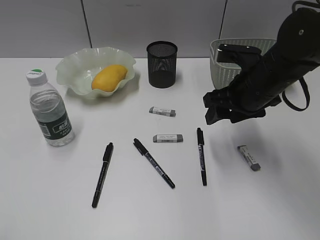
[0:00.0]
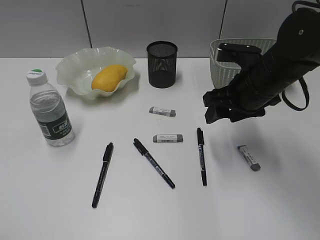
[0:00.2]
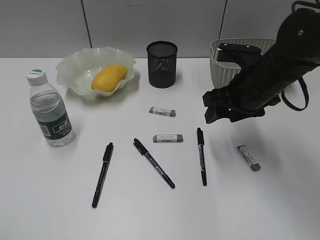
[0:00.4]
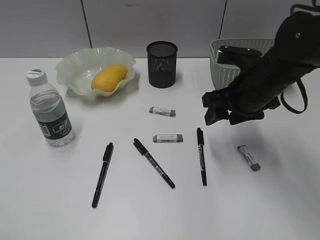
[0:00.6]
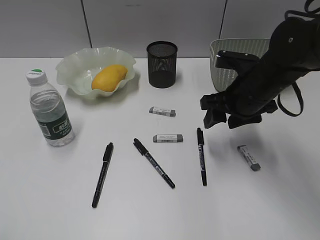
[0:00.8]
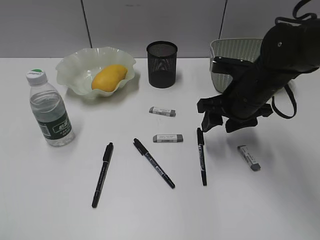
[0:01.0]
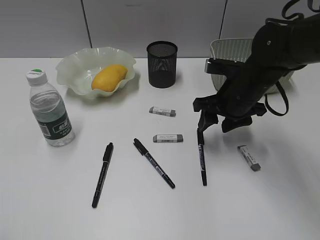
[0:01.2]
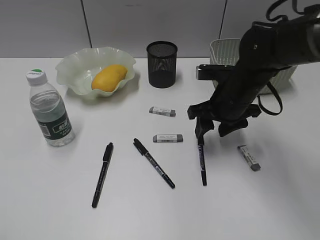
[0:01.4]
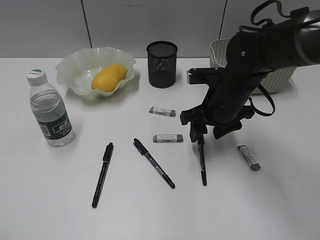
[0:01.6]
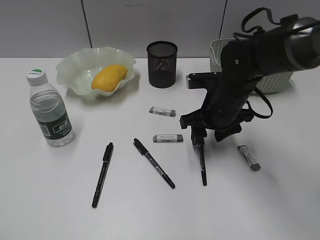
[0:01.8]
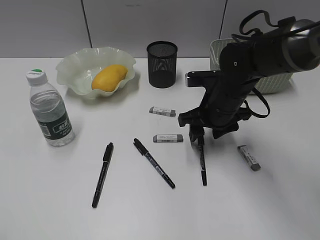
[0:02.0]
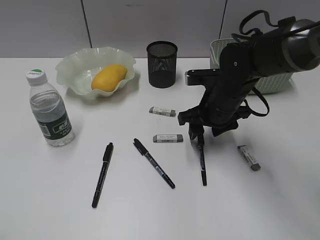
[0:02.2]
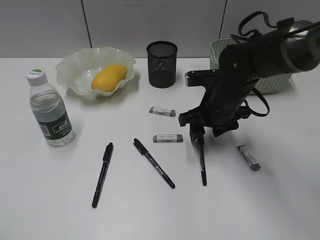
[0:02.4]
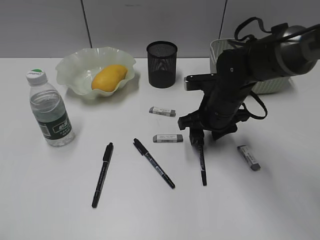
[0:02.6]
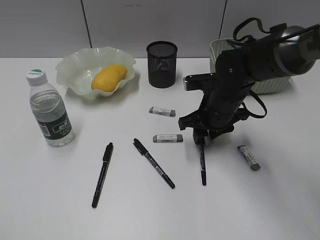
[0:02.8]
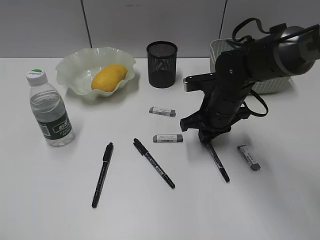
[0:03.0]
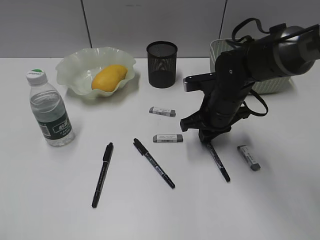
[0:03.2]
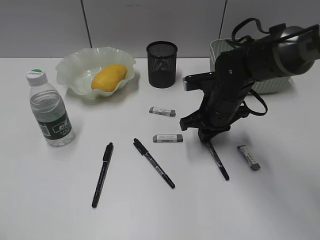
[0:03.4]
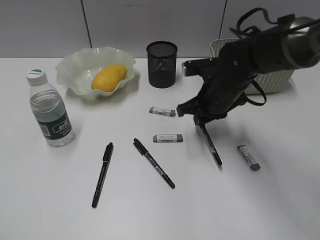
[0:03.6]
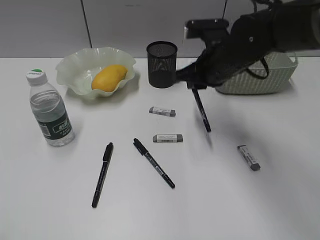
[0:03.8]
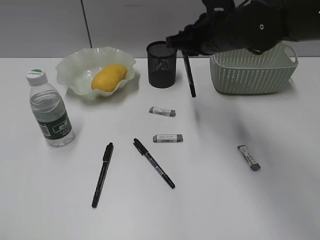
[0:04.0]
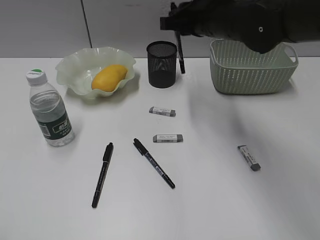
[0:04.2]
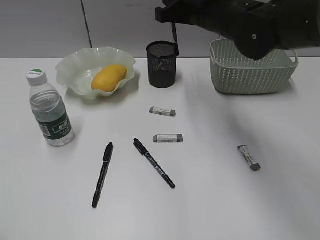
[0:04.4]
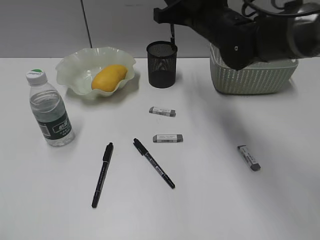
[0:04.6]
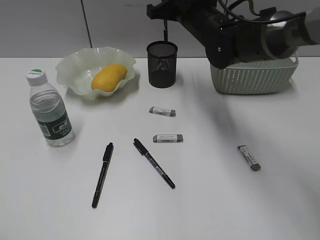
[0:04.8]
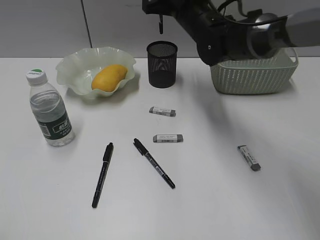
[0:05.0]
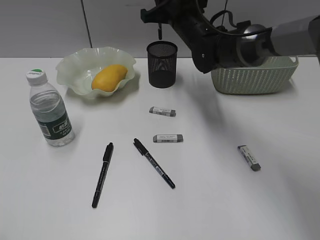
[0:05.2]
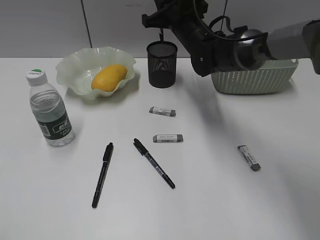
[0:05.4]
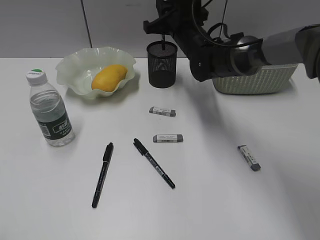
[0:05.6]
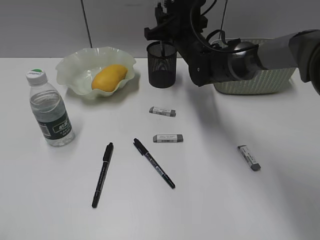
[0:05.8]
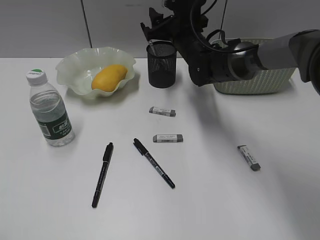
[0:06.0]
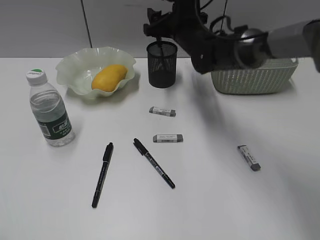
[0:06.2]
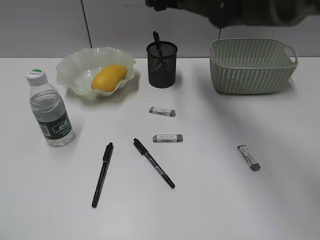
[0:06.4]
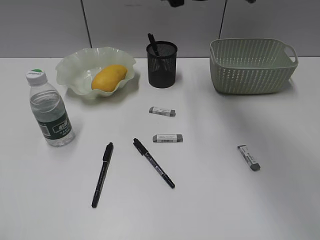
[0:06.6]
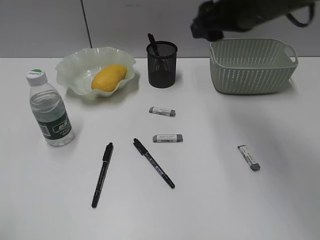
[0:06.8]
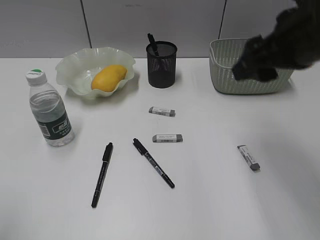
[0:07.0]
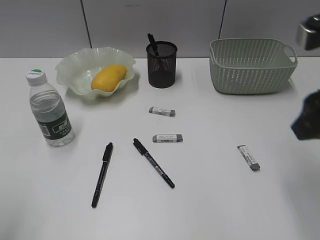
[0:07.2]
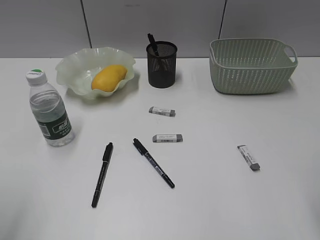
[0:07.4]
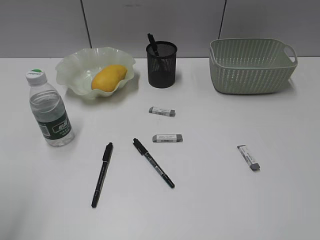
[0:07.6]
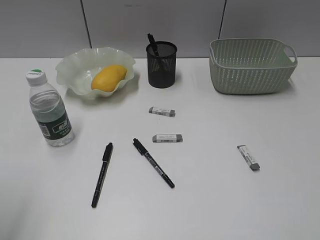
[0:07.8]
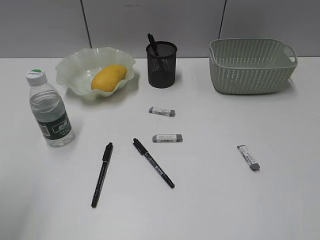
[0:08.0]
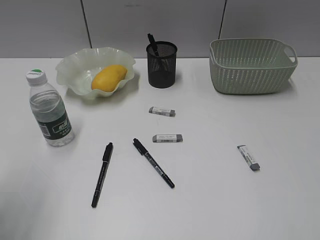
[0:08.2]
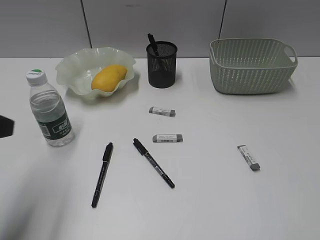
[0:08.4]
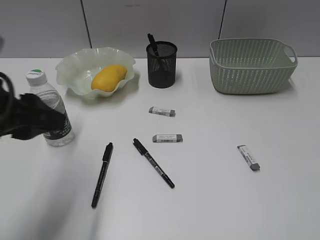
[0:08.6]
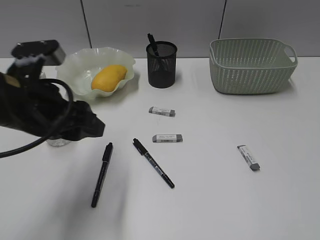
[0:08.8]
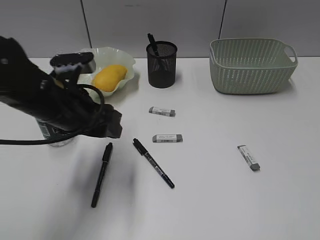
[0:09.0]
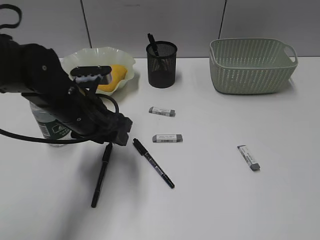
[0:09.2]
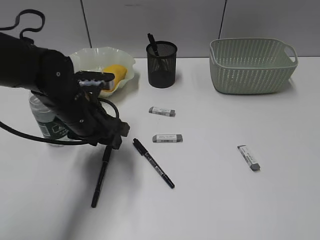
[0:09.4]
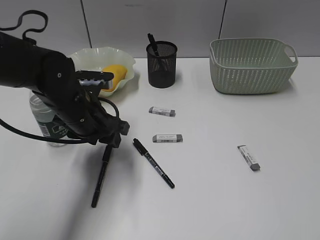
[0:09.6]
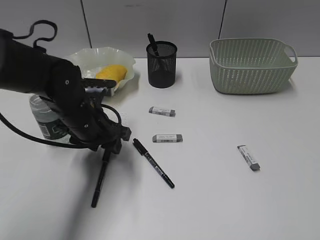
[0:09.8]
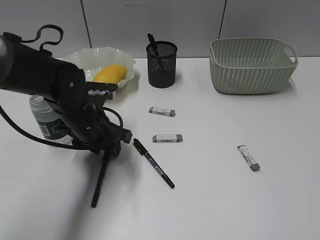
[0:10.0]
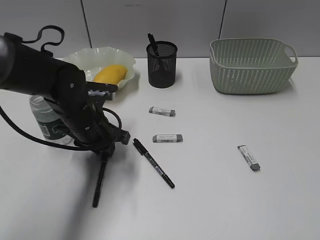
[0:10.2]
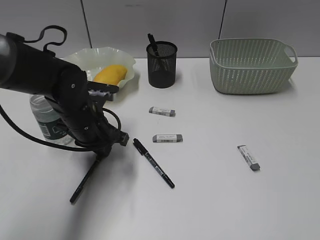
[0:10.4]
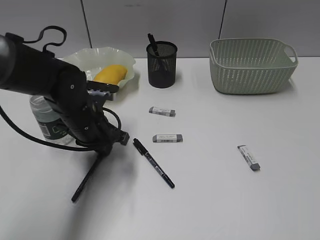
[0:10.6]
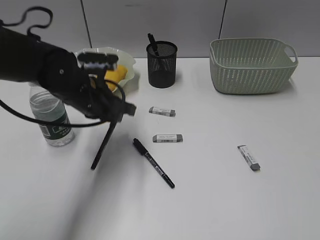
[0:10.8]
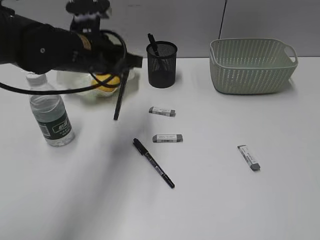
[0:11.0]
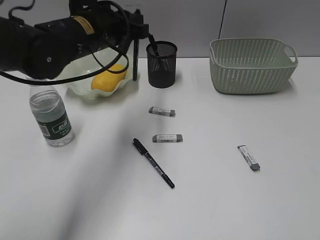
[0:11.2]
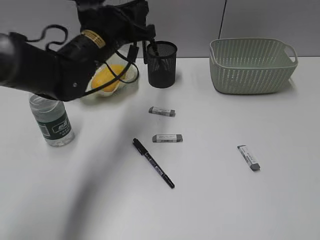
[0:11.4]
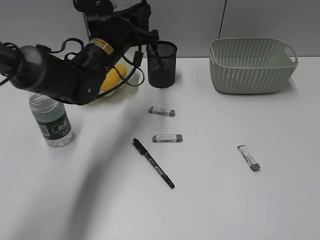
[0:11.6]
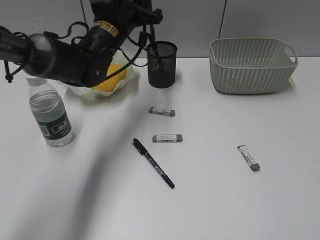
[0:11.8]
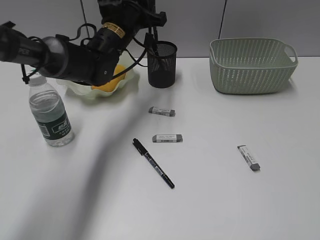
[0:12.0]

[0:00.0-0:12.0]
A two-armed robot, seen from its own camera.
Step, 0:00.0 to 0:03.2: Grasp the black pen with right gripper.
Step, 0:06.6 to 0:10.6: Grasp the black pen with left gripper.
0:00.0 to 0:01.6: The right gripper ends up about 5 cm from where it was.
0:01.6 to 0:03.0: The right gripper closes its fingers.
0:03.0 to 0:04.4: The right gripper travels upward by approximately 15 cm.
0:04.4 to 0:06.0: The right gripper heads downward and forward, covering roughly 15 cm, and opens its fingers.
0:06.0 to 0:07.6: The left gripper is displaced forward by some 10 cm; the right gripper moves backward and to the right, some 40 cm.
0:07.6 to 0:09.0: The right gripper is displaced backward by roughly 10 cm. The left gripper goes approximately 25 cm to the right, forward and downward.
0:09.0 to 0:10.4: The left gripper is displaced downward and forward by approximately 10 cm, and closes up.
0:10.4 to 0:12.0: The left gripper travels forward, upward and to the right by roughly 15 cm.

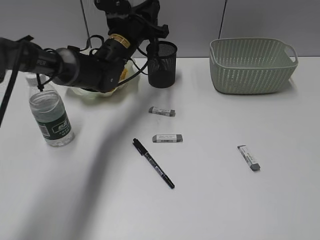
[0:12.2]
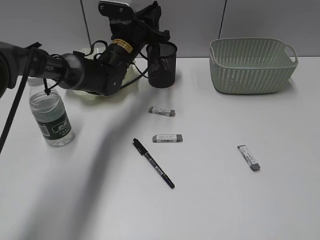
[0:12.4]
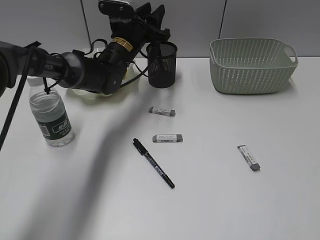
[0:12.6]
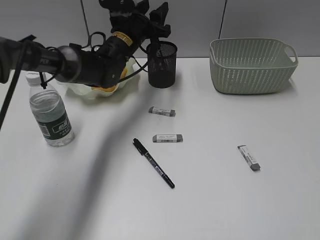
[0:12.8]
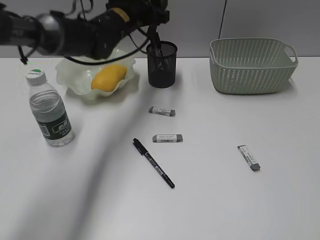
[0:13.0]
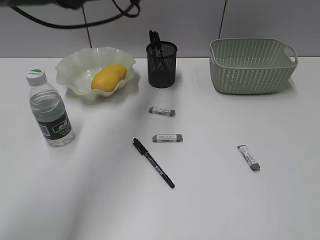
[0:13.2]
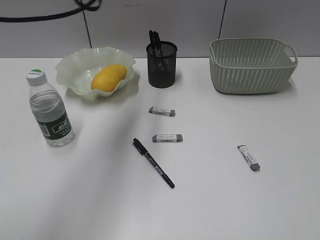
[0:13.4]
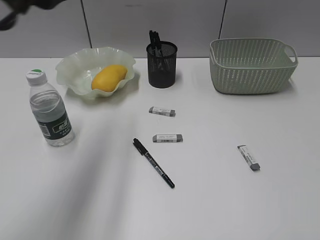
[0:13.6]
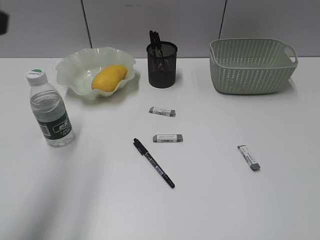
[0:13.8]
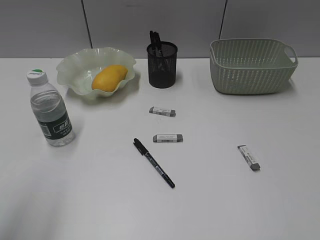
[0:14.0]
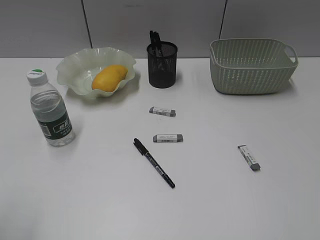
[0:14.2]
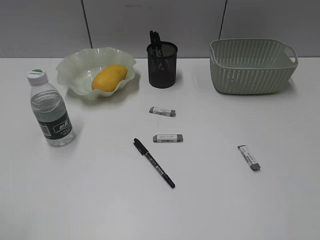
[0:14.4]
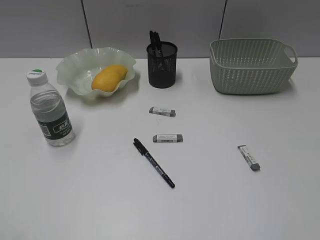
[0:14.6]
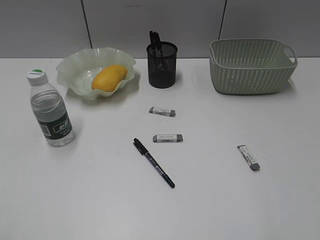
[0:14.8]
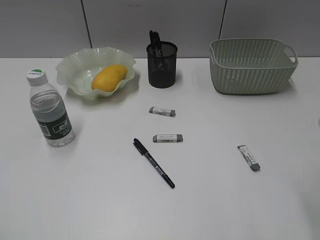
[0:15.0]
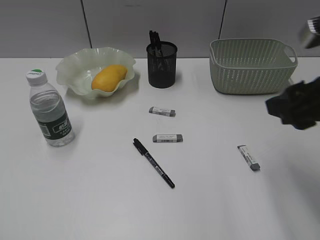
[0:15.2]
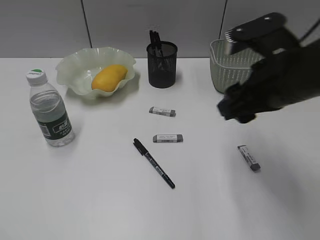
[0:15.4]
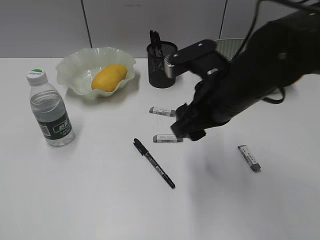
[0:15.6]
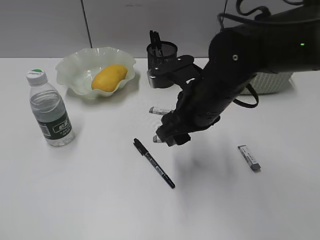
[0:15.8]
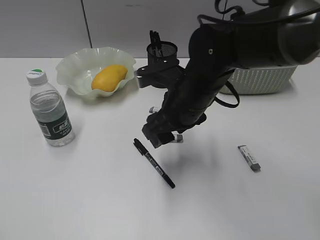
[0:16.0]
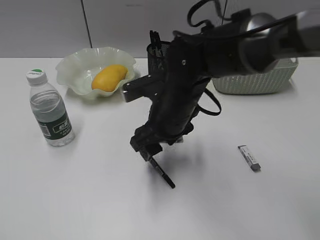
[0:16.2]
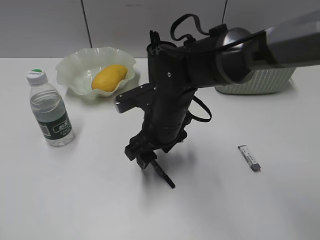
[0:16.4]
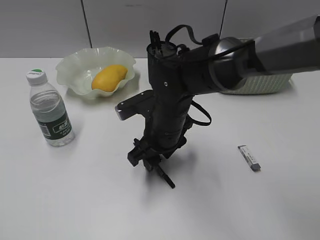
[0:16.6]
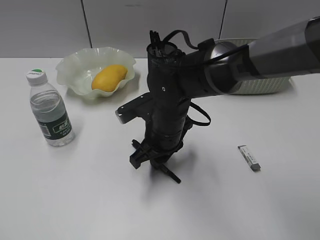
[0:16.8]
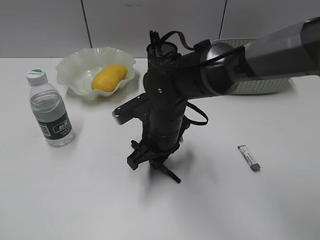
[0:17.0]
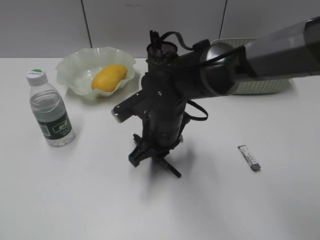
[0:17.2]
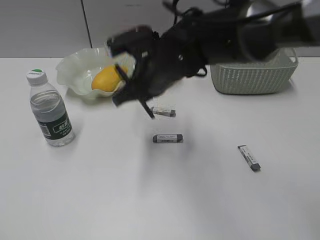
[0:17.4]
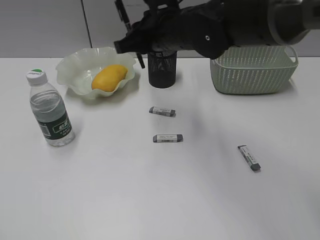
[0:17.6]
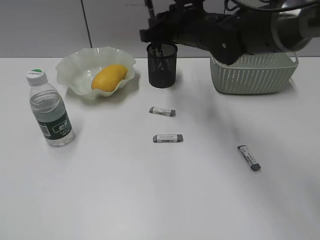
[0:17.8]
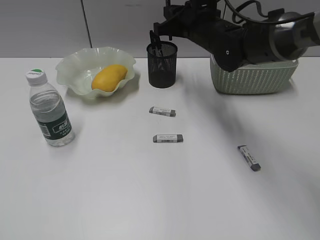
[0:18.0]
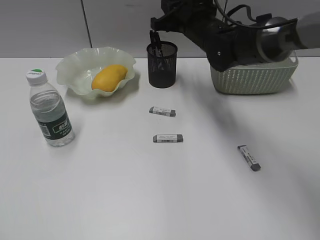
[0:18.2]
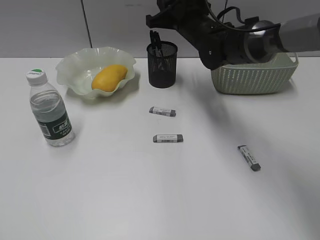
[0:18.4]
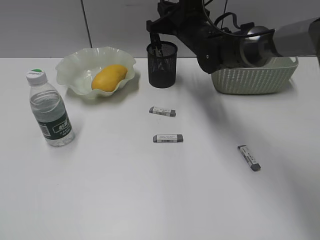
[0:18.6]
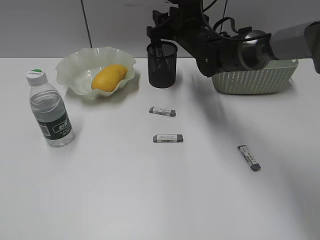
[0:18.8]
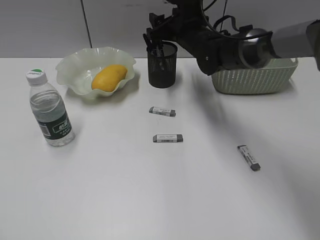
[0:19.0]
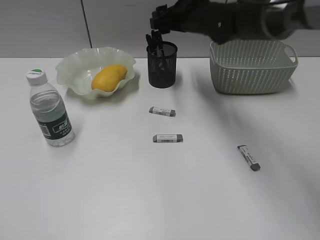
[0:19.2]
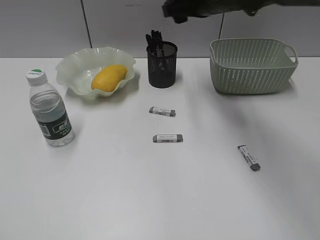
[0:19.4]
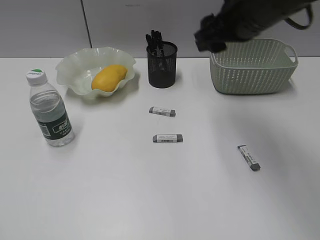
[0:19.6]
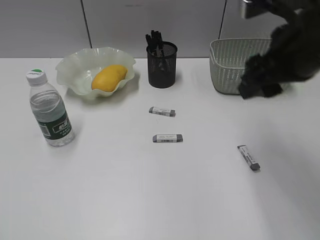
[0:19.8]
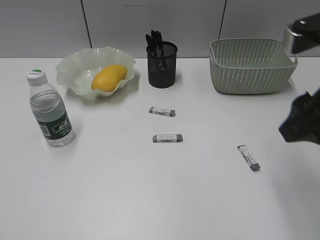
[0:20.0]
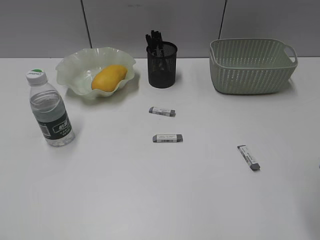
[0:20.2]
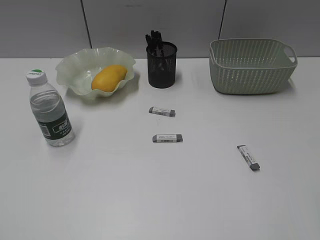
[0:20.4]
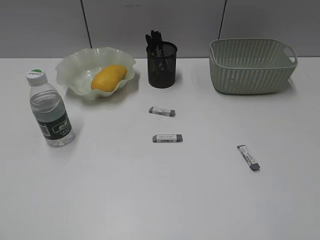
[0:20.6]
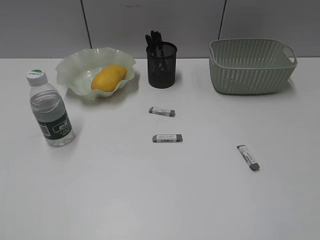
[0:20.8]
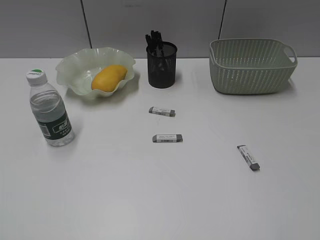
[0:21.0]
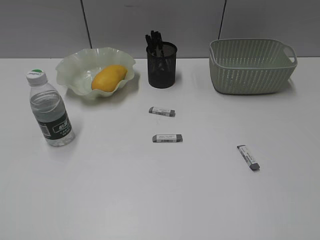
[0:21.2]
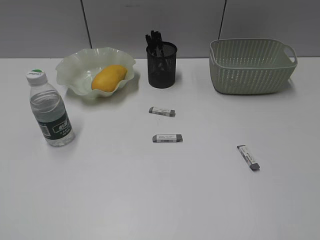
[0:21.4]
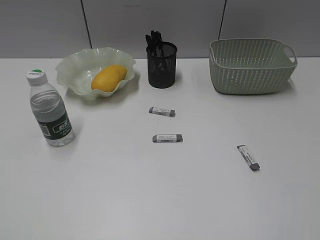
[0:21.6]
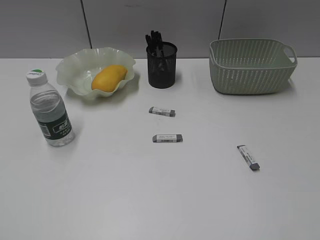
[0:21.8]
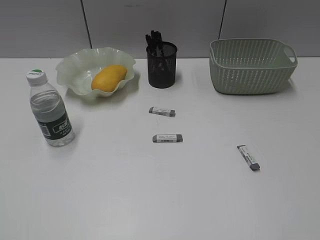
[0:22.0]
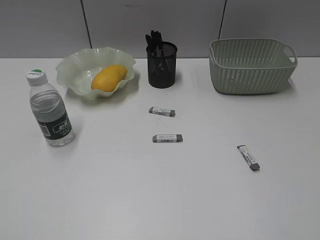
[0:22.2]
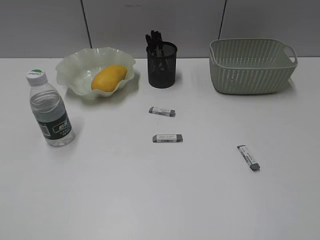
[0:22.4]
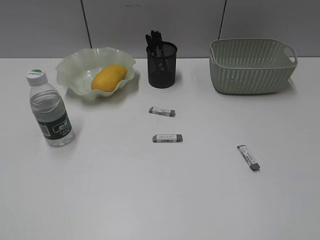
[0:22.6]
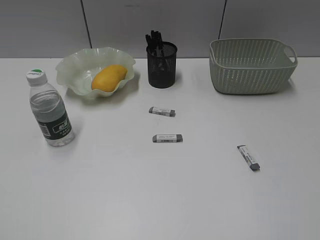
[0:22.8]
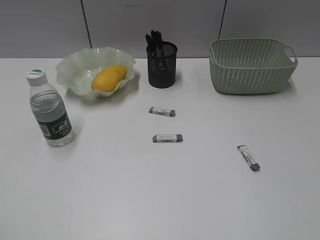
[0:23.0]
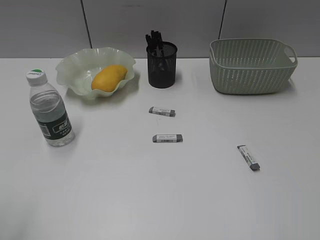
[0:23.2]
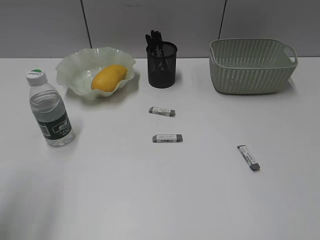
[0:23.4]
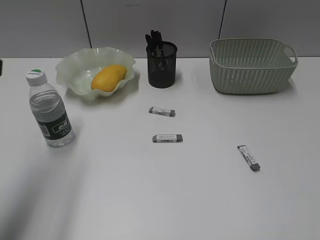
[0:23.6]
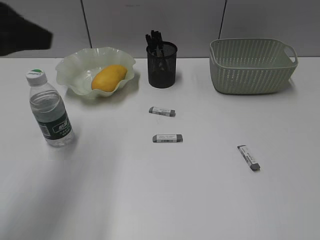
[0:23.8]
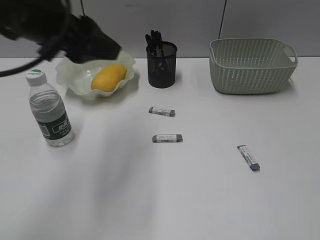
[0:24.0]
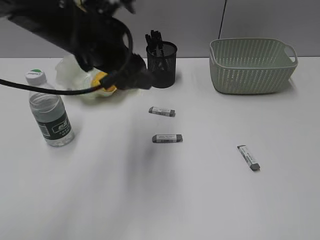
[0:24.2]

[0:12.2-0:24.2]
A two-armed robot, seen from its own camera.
Step, 0:13.2 to 0:17.0: Grasp the black pen with right gripper.
0:12.2 to 0:13.8: The left gripper is displaced backward, upward and to the left by some 40 cm, and opens up.
0:13.8 to 0:15.2: The left gripper travels backward and to the left by roughly 20 cm, while the right gripper goes some 20 cm forward and to the left.
0:15.2 to 0:16.6: The right gripper travels to the left, downward and forward by some 30 cm.
0:16.6 to 0:18.2: The right gripper is displaced forward, upward and to the right by roughly 20 cm, and closes up.
0:18.2 to 0:19.8: The right gripper heads backward, to the right and upward, covering roughly 20 cm, and opens its fingers.
0:19.8 to 0:21.2: The right gripper moves backward and to the right, approximately 30 cm.
0:22.6 to 0:24.2: The left gripper goes approximately 40 cm forward and to the right, and opens its fingers.
